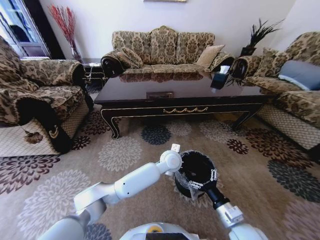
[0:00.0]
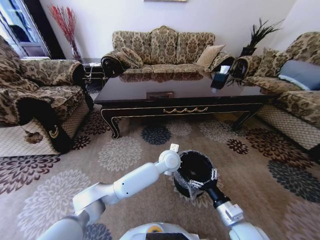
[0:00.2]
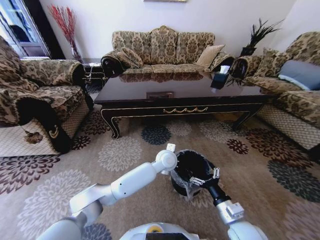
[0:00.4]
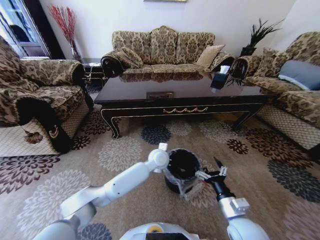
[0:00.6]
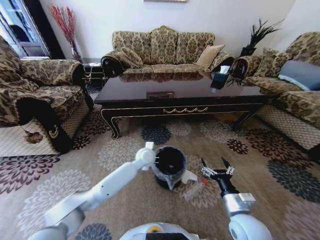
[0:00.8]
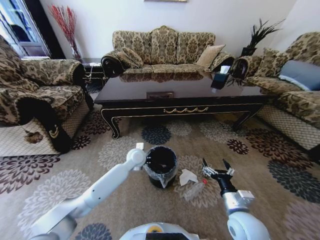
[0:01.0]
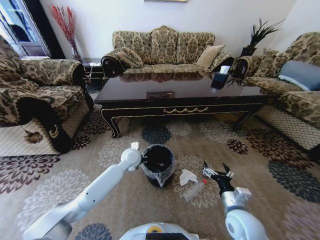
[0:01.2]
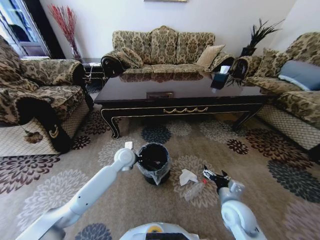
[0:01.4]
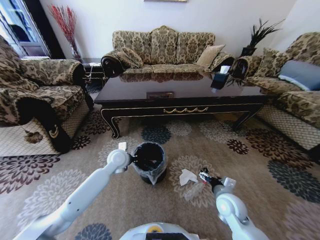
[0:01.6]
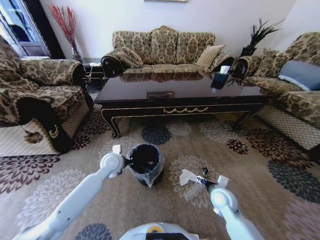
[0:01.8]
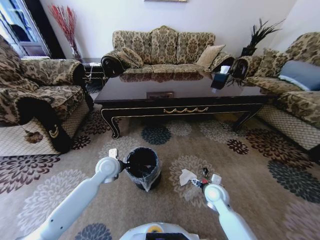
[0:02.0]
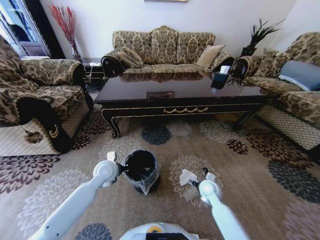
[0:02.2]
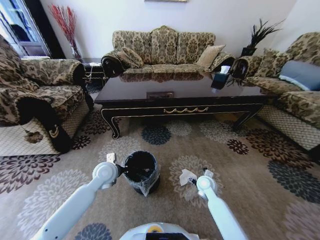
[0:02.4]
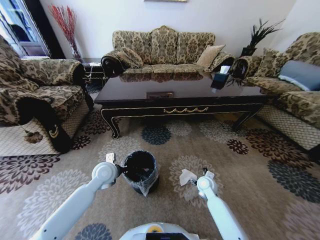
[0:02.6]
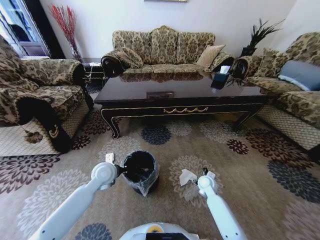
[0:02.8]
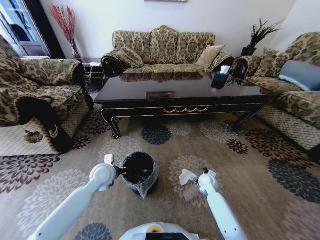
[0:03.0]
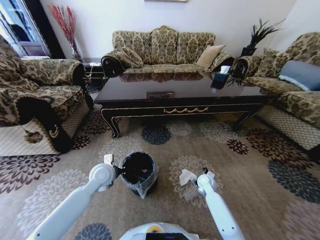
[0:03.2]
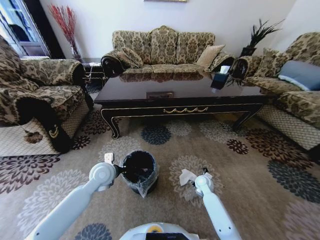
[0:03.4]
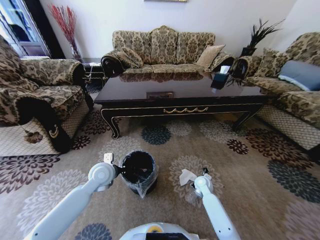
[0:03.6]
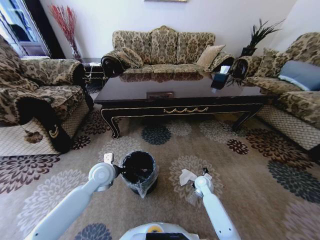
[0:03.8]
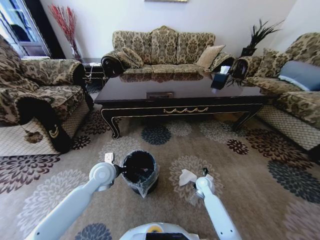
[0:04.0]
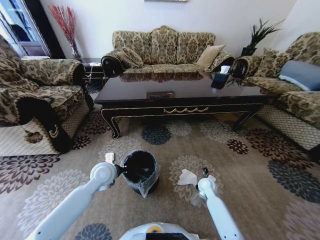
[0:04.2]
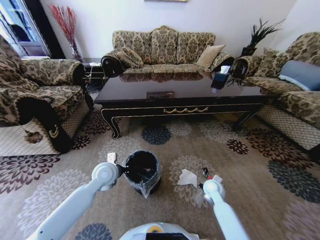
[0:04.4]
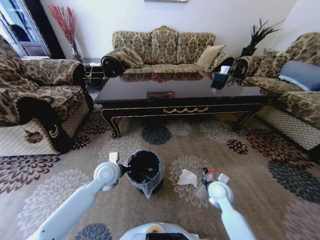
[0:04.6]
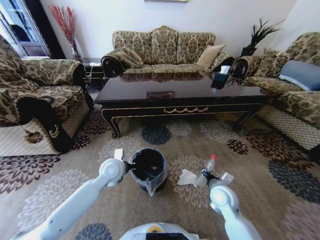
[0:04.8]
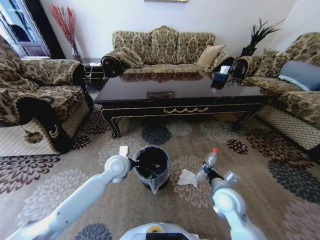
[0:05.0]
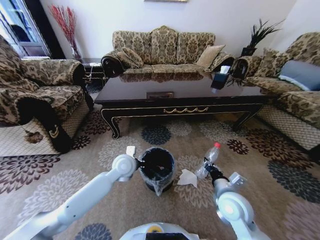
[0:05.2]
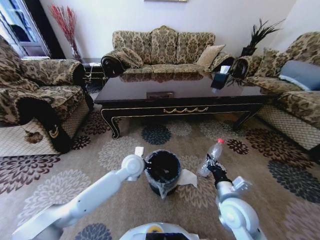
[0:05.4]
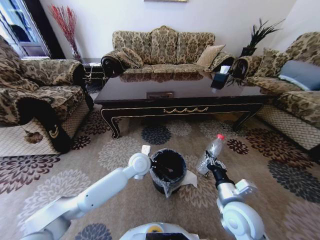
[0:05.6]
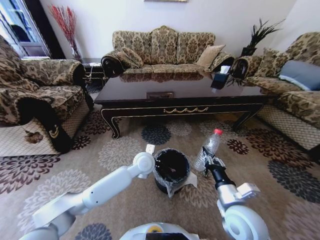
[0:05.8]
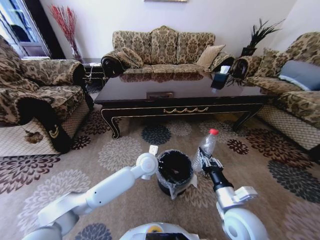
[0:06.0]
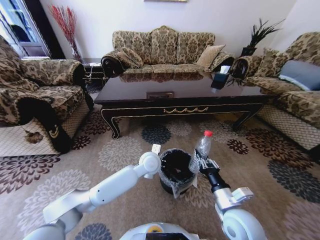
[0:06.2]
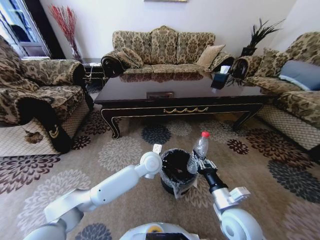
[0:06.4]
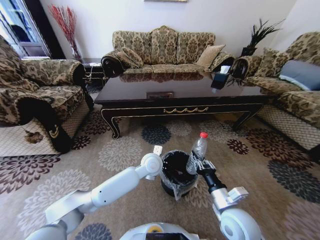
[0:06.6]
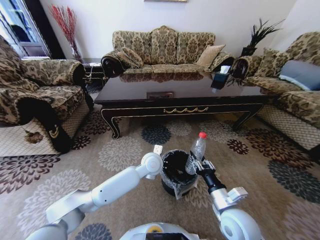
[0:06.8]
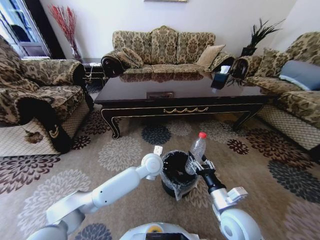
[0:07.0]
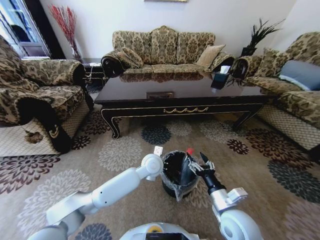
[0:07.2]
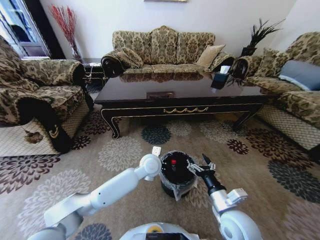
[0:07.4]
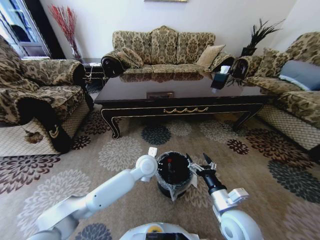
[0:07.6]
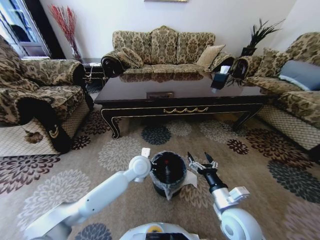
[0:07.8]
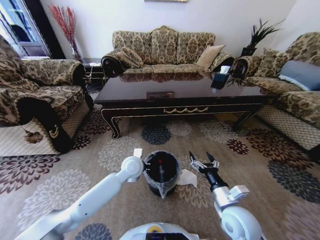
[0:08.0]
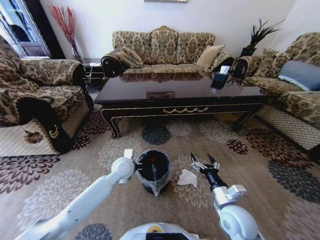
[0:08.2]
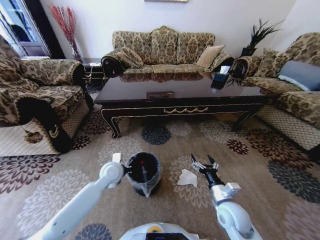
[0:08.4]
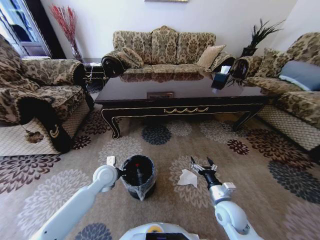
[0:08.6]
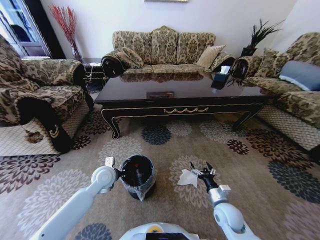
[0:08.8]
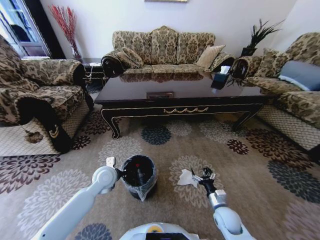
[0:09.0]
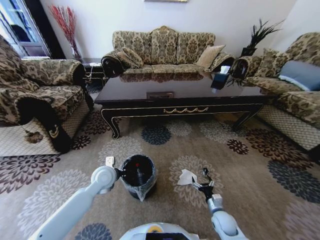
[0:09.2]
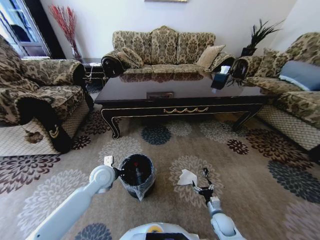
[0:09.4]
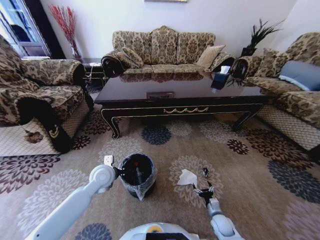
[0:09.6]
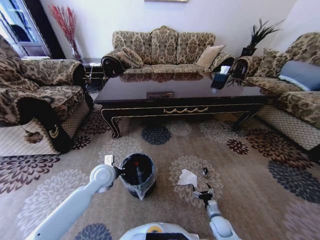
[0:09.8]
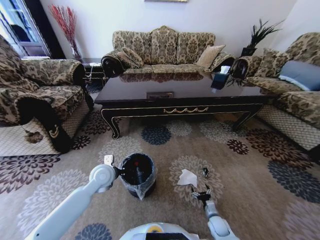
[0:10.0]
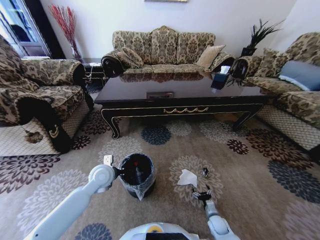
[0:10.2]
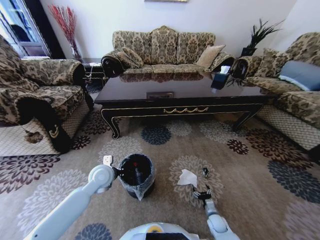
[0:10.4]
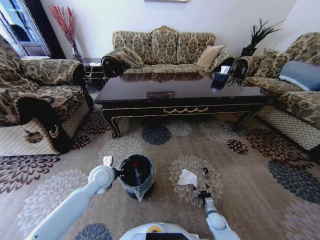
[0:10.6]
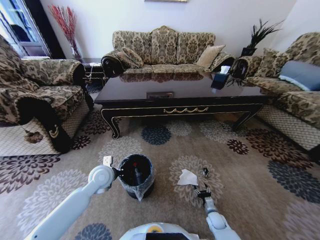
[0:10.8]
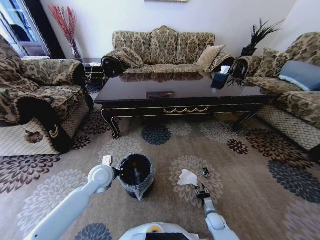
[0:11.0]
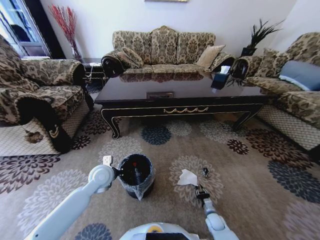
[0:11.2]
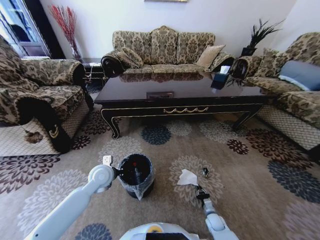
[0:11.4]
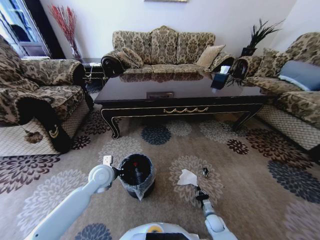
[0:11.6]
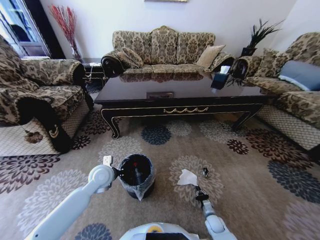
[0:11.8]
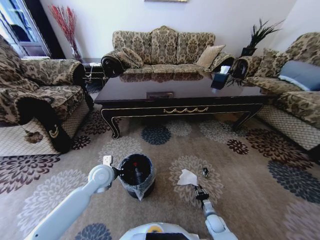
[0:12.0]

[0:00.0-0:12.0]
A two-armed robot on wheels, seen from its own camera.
Task of the whole recording: Move to the front of the table and pick up the trash from the floor, then place it into the trash bin.
0:00.0 to 0:01.6: The left gripper goes roughly 25 cm to the left. Meanwhile the right gripper travels forward by some 10 cm.
0:01.6 to 0:03.0: The right gripper moves forward and downward, roughly 15 cm, while the left gripper is displaced backward and to the left by some 10 cm.
0:03.0 to 0:04.4: The right gripper closes.
0:04.4 to 0:06.0: The left gripper is displaced to the right by approximately 15 cm; the right gripper travels backward and upward by roughly 20 cm.
0:06.0 to 0:07.6: The right gripper opens its fingers.
0:07.6 to 0:09.0: The left gripper goes about 20 cm to the left. The right gripper shifts some 15 cm downward.
0:09.0 to 0:10.4: The right gripper moves downward, some 15 cm.

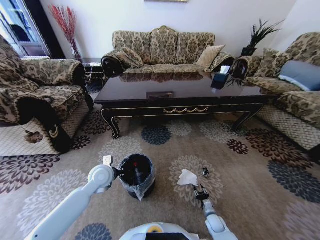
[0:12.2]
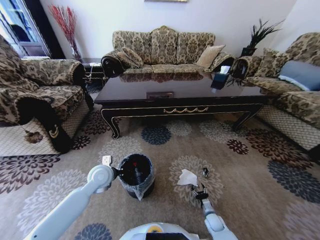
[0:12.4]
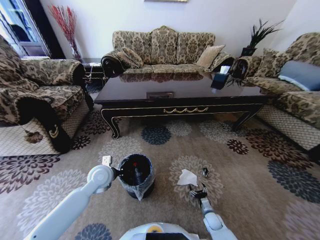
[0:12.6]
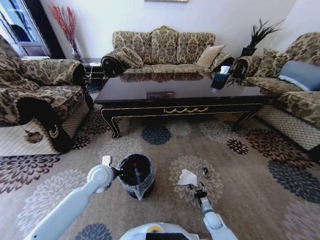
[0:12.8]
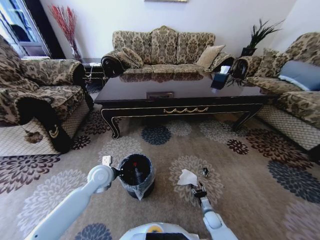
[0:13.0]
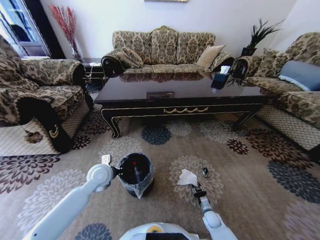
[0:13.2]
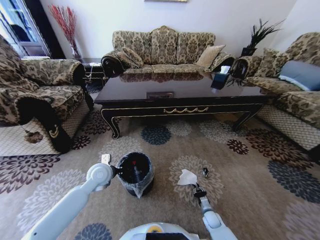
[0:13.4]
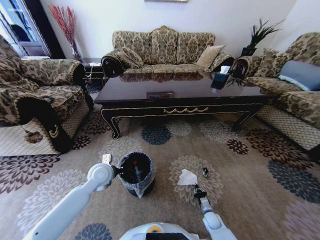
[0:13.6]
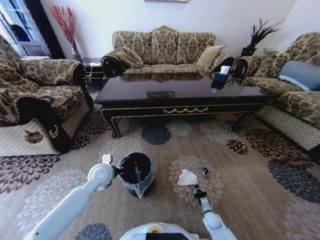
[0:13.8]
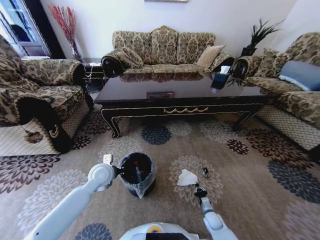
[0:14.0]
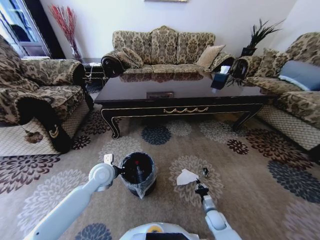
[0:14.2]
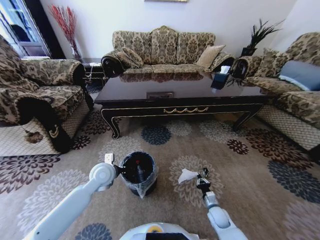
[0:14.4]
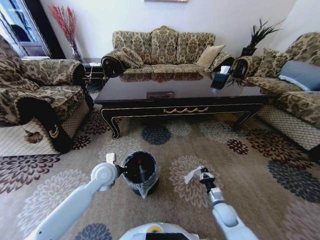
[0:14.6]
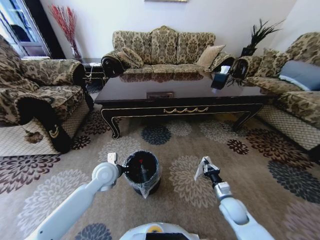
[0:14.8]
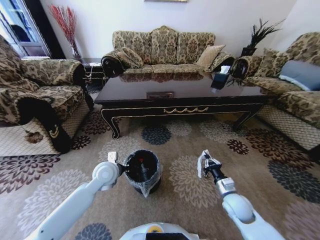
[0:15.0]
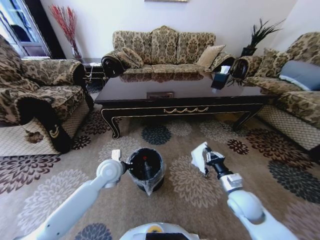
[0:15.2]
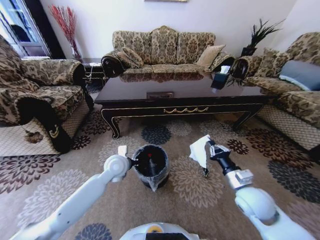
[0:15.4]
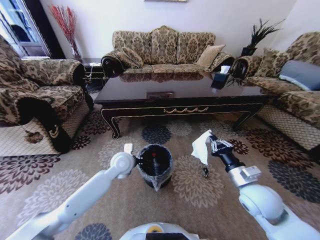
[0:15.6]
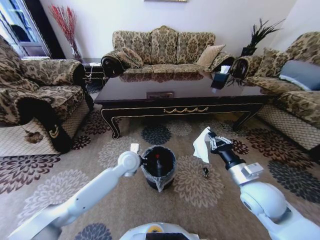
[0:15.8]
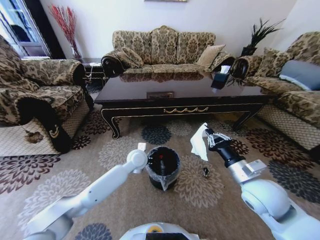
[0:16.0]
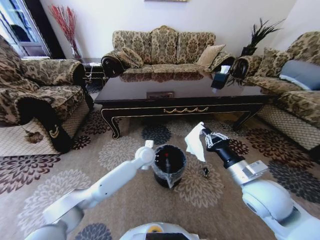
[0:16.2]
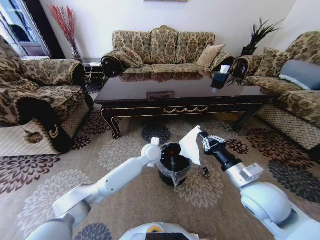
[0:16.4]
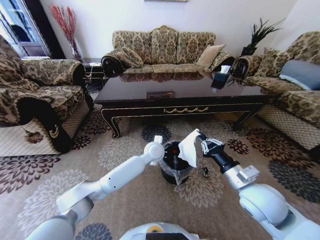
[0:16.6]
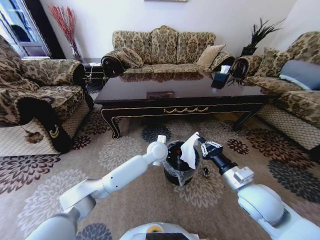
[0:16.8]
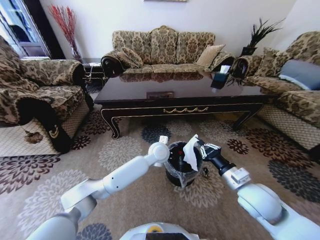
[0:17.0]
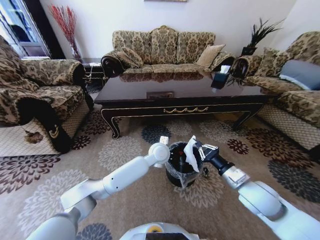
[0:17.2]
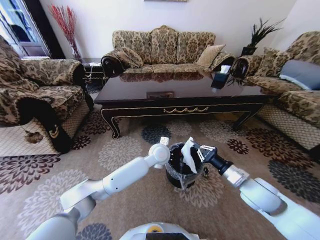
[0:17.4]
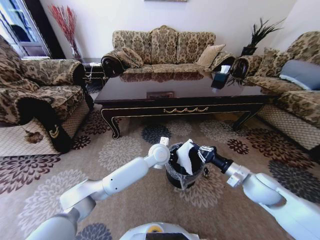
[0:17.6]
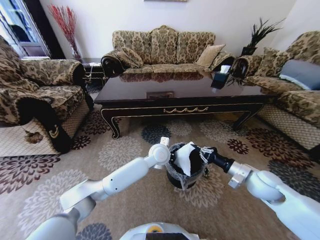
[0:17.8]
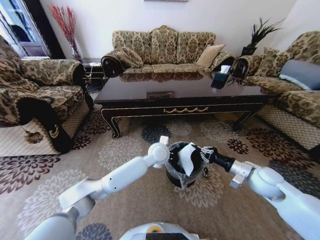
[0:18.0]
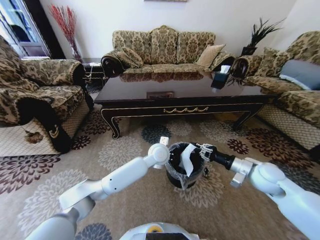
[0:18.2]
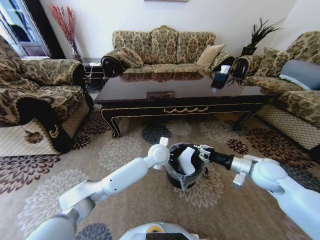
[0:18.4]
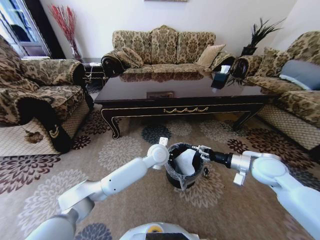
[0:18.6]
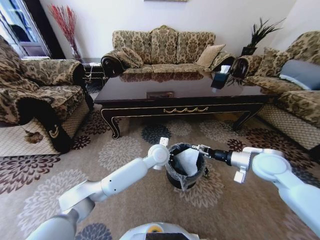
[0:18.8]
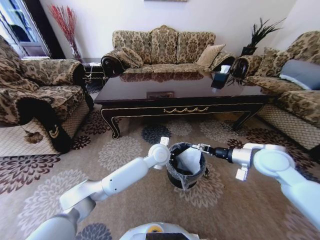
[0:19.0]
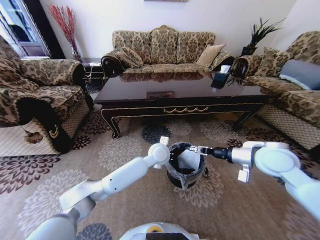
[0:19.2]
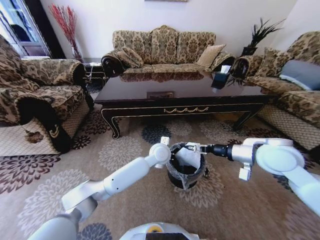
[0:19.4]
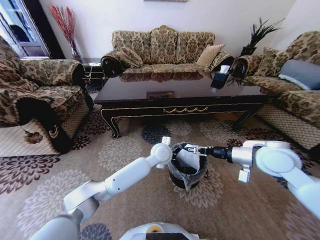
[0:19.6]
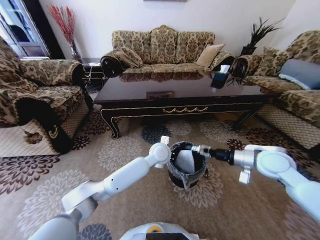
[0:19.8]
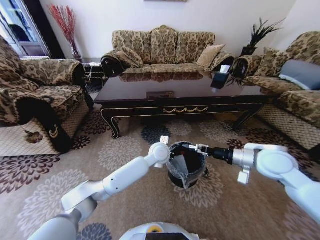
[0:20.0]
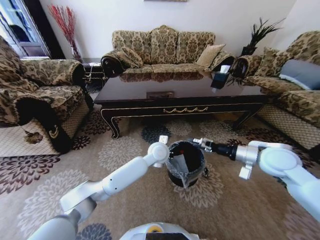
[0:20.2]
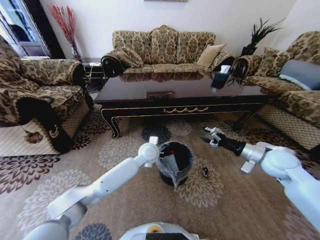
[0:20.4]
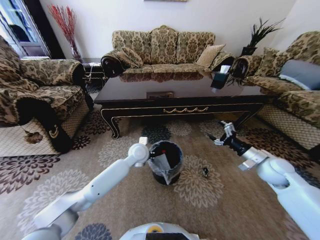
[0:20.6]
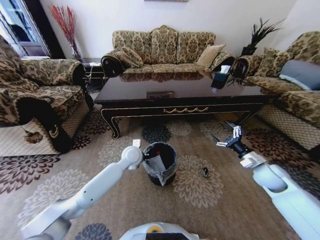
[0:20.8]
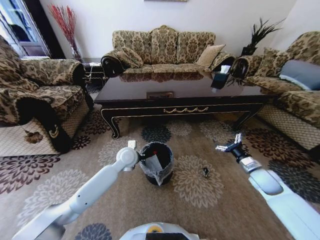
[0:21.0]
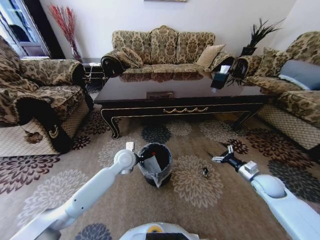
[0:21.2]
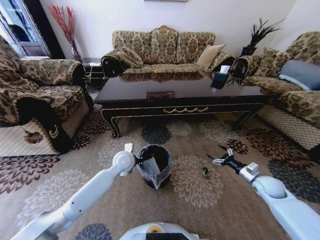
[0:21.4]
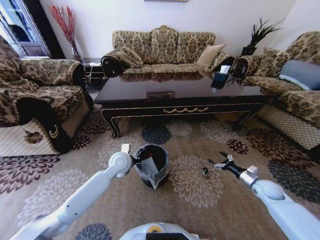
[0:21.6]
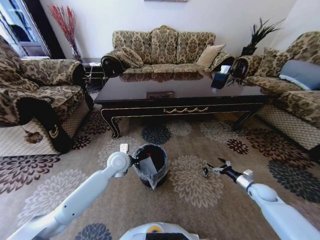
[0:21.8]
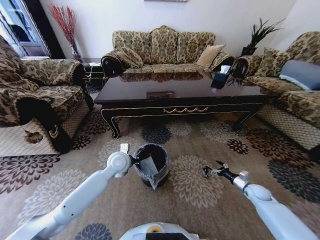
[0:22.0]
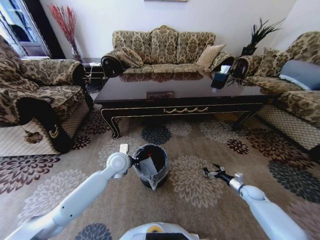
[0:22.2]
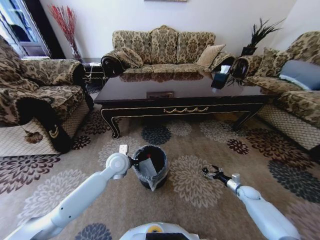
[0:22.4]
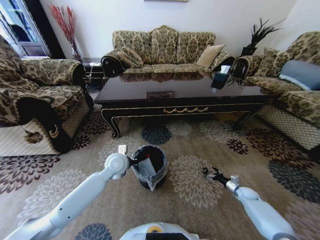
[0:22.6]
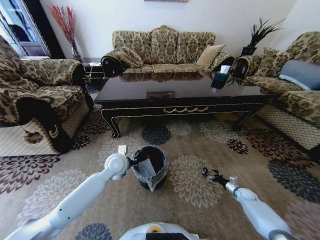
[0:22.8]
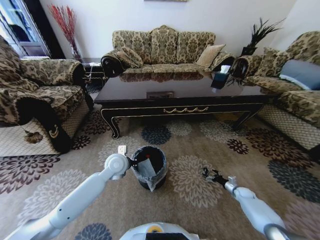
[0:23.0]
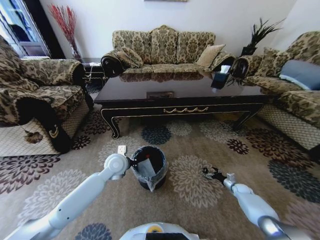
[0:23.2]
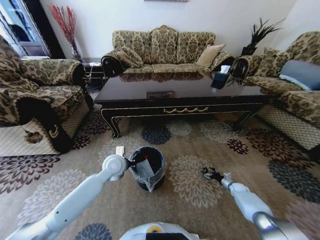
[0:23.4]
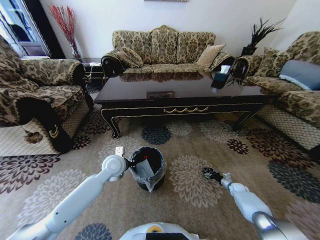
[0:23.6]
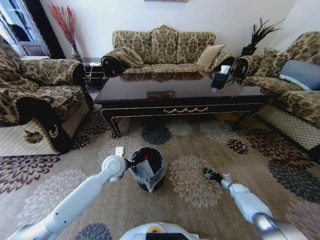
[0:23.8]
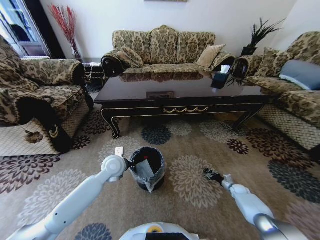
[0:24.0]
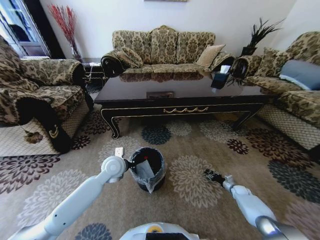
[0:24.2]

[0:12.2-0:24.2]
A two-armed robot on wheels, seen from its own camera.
Task of the whole recording: Move to the front of the table and pick up the trash from the floor, then place it into the trash bin.
0:12.2 to 0:13.8: The right gripper closes up.
0:13.8 to 0:15.2: The right gripper travels upward by about 30 cm.
0:15.2 to 0:16.6: The left gripper is displaced to the right and forward by some 20 cm; the right gripper travels upward by approximately 10 cm.
0:16.6 to 0:18.2: The right gripper is displaced to the right and forward by roughly 15 cm.
0:18.2 to 0:19.8: The right gripper heads upward, covering roughly 5 cm, and opens its fingers.
0:19.8 to 0:21.2: The left gripper goes about 15 cm to the left, while the right gripper moves downward and to the right, roughly 20 cm.
0:21.2 to 0:22.6: The right gripper moves downward, some 20 cm.
0:22.6 to 0:24.2: The right gripper closes up.
